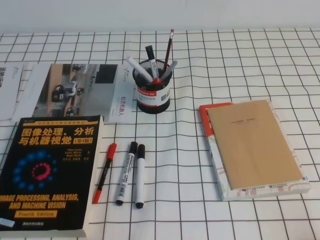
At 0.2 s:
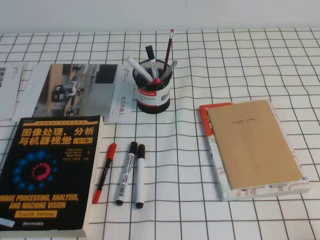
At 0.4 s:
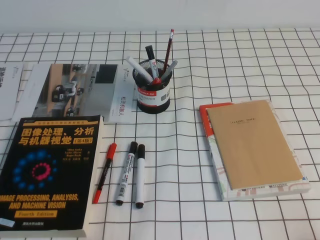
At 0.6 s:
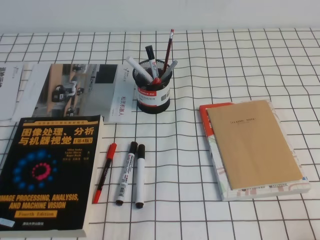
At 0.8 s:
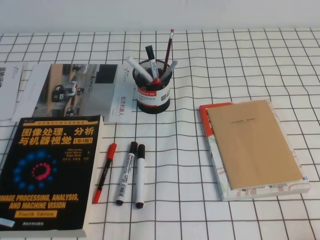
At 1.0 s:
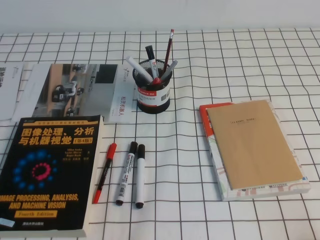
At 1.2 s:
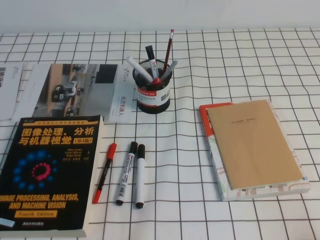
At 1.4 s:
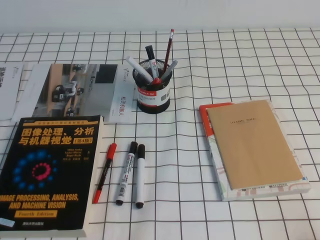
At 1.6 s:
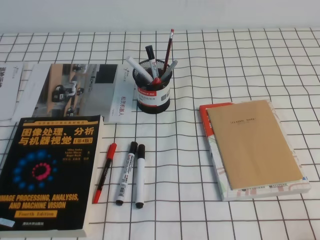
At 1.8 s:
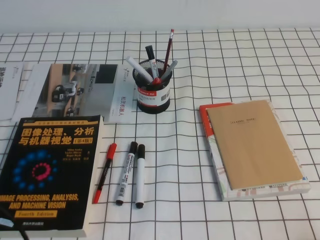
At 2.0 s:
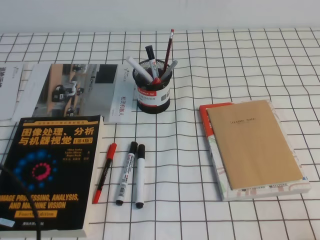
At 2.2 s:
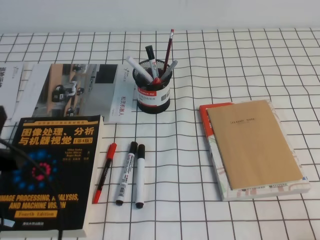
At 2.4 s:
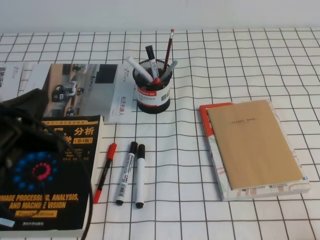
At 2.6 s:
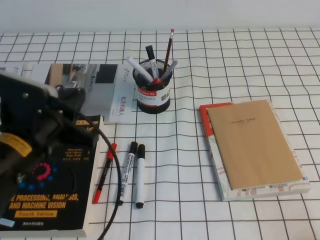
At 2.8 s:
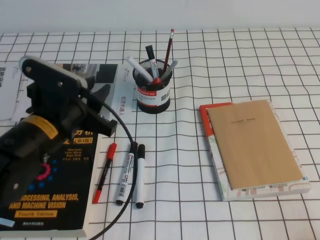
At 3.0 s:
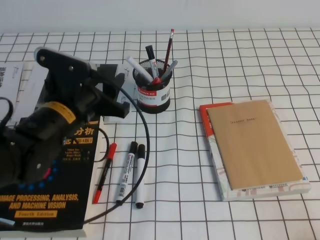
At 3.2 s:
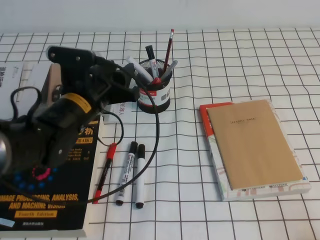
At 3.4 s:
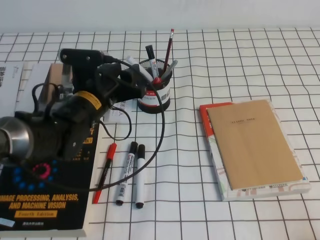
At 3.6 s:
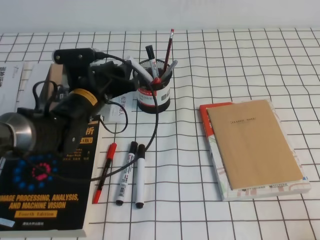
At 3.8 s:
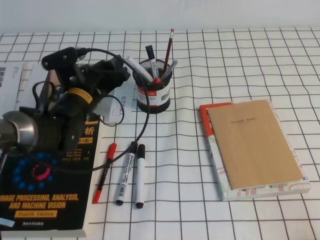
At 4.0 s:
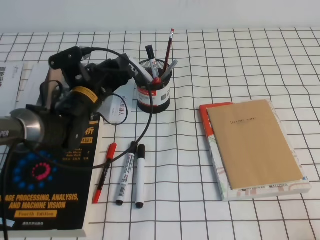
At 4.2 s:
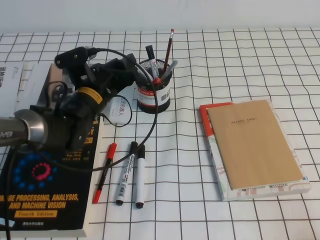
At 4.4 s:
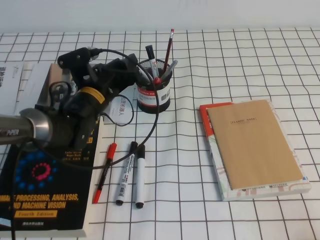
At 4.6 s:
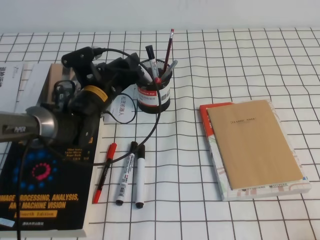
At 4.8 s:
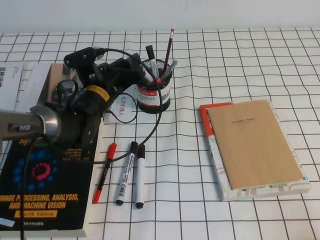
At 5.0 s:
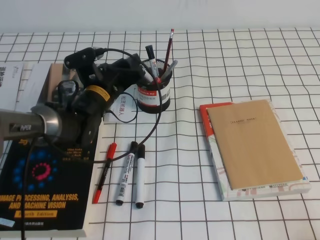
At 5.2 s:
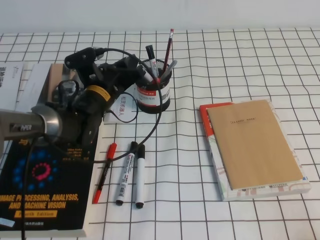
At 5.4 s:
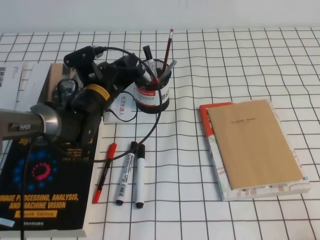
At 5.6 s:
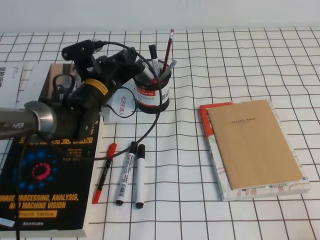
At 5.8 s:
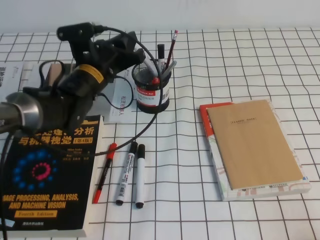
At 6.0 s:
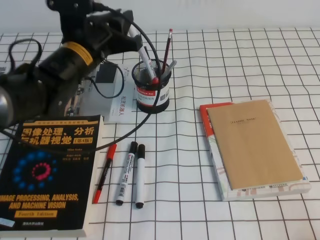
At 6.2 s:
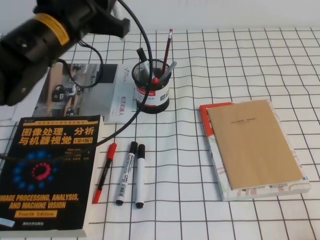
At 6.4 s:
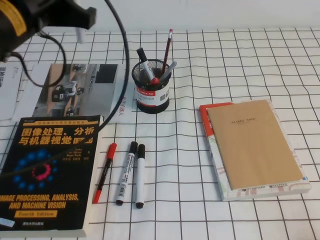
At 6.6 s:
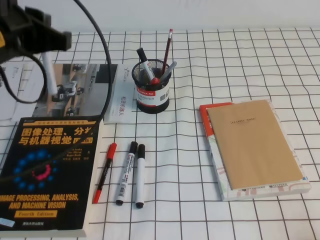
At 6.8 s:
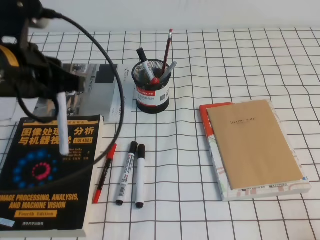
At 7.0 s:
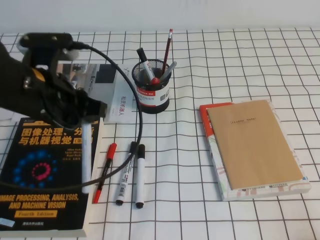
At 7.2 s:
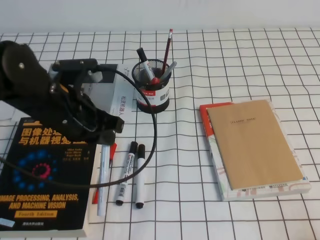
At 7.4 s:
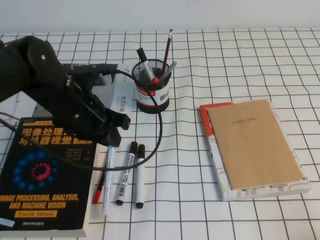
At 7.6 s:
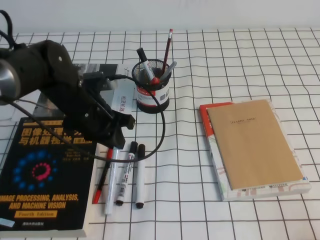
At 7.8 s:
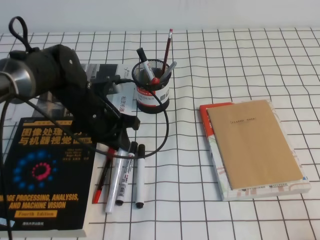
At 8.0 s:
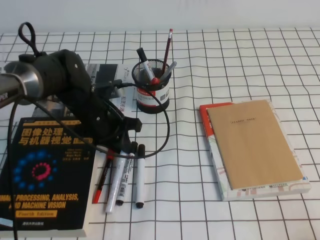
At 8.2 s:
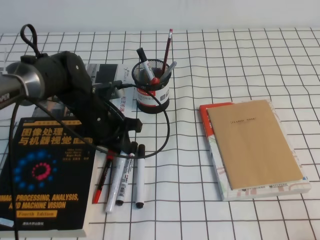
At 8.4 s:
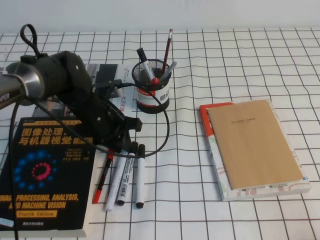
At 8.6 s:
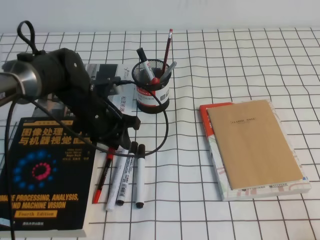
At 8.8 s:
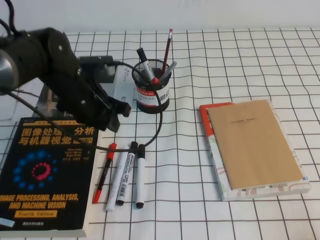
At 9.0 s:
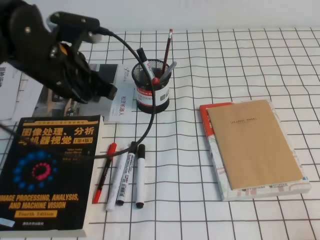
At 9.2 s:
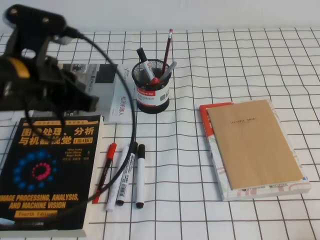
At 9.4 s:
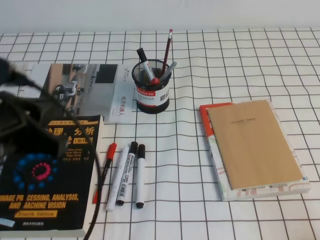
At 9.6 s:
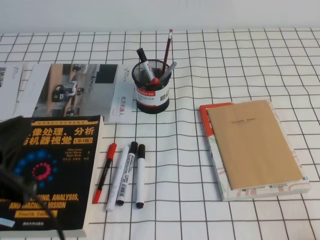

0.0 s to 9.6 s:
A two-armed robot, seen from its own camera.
1.6 to 3.2 s: The left gripper travels forward and to the right by approximately 30 cm, and opens up.
3.2 to 4.8 s: The left gripper goes some 10 cm forward and downward.
4.8 to 6.4 s: The left gripper moves upward and backward, approximately 25 cm, and closes its fingers.
6.4 to 8.0 s: The left gripper moves downward, roughly 20 cm.
8.0 to 9.6 s: The left gripper travels backward, upward and to the left by about 30 cm.

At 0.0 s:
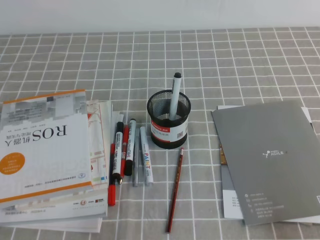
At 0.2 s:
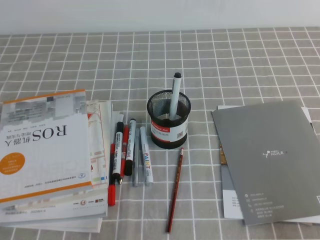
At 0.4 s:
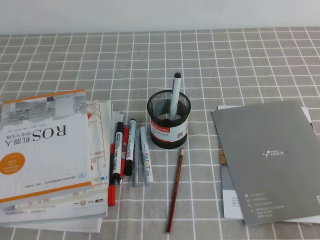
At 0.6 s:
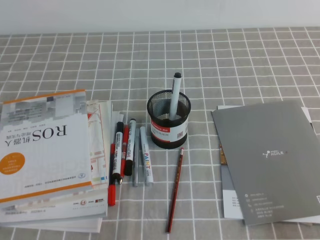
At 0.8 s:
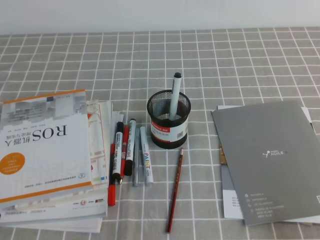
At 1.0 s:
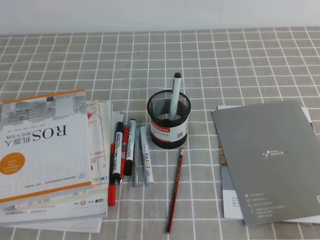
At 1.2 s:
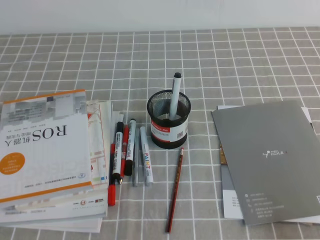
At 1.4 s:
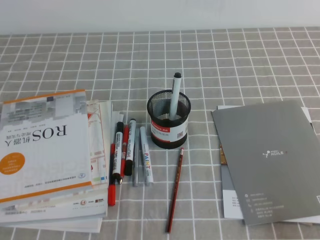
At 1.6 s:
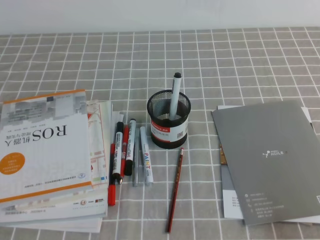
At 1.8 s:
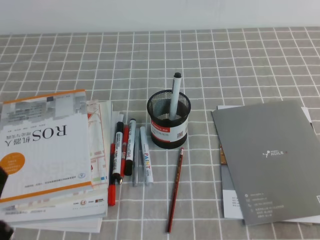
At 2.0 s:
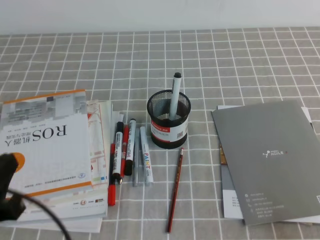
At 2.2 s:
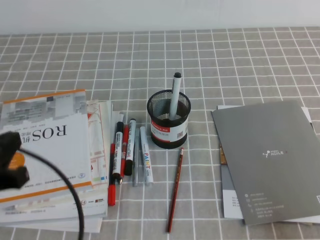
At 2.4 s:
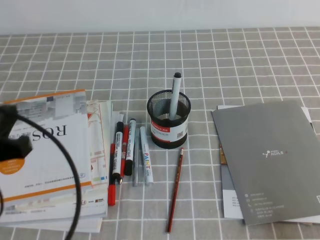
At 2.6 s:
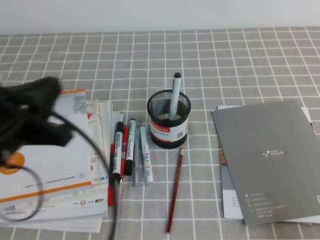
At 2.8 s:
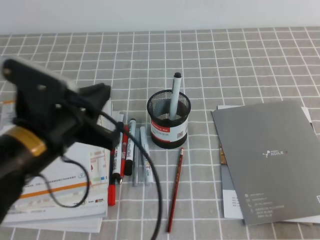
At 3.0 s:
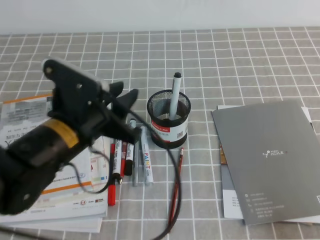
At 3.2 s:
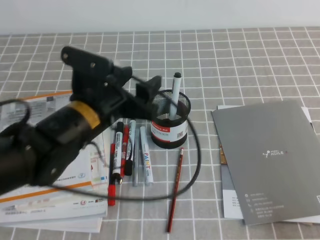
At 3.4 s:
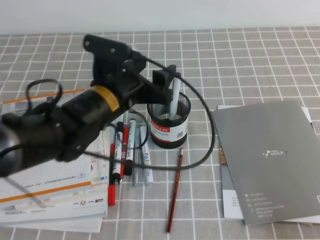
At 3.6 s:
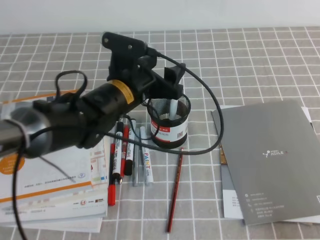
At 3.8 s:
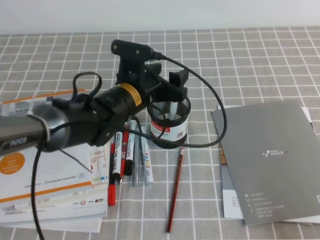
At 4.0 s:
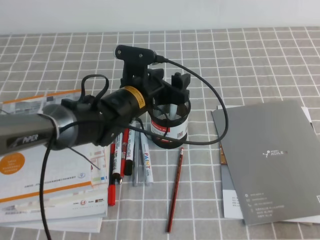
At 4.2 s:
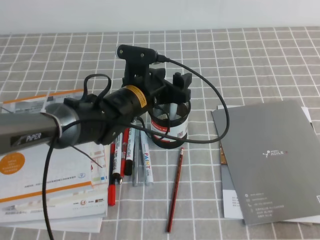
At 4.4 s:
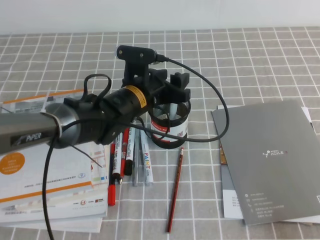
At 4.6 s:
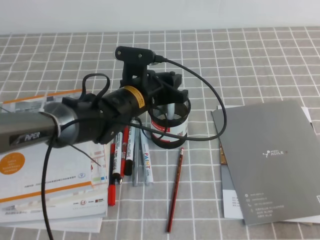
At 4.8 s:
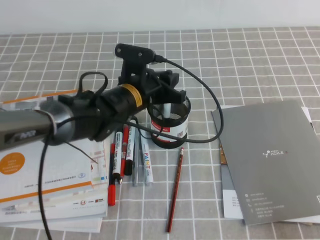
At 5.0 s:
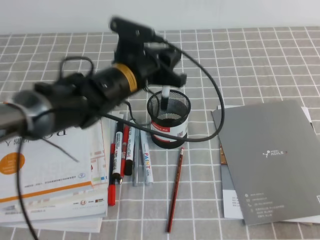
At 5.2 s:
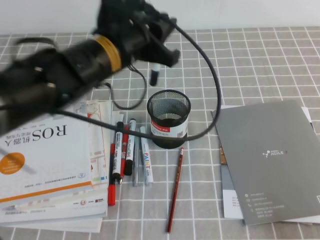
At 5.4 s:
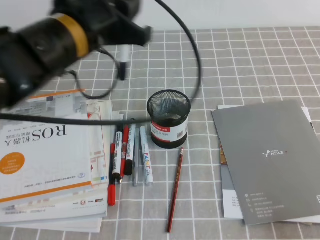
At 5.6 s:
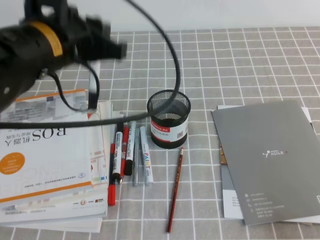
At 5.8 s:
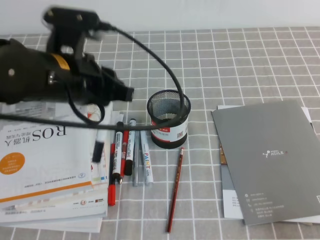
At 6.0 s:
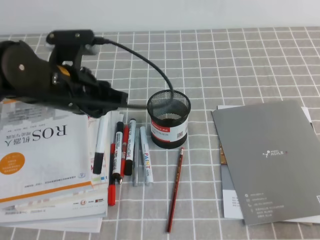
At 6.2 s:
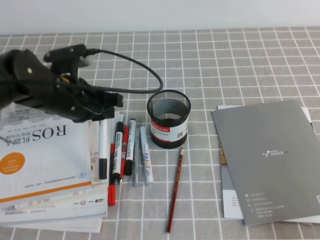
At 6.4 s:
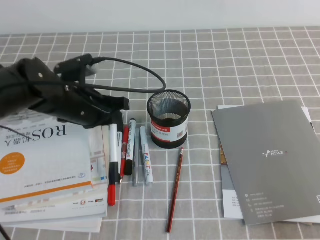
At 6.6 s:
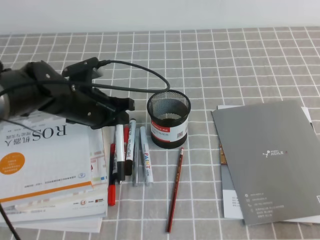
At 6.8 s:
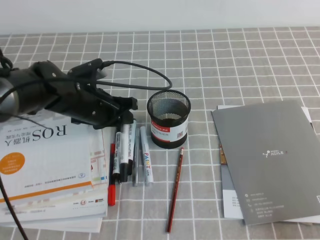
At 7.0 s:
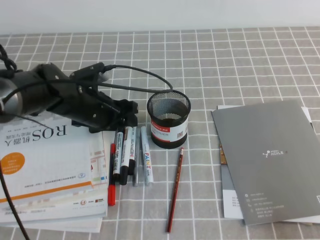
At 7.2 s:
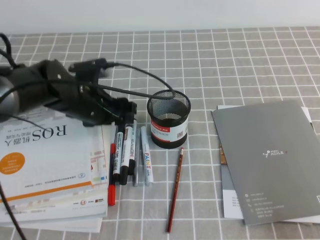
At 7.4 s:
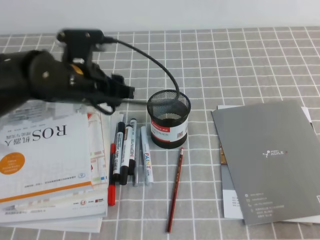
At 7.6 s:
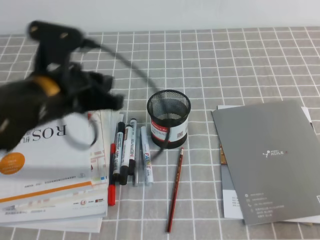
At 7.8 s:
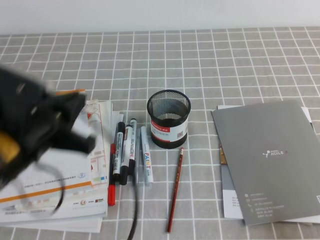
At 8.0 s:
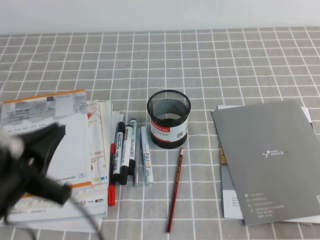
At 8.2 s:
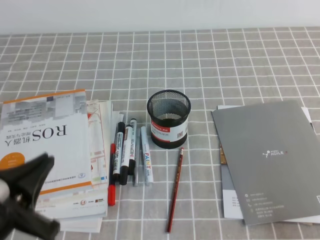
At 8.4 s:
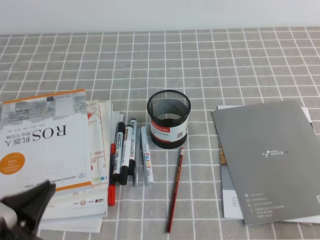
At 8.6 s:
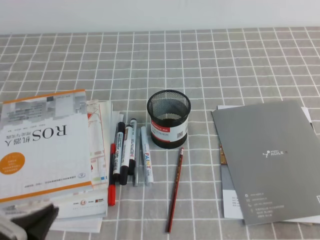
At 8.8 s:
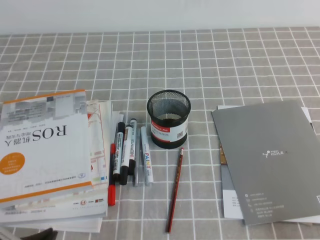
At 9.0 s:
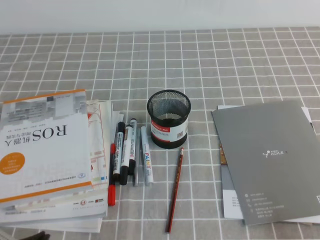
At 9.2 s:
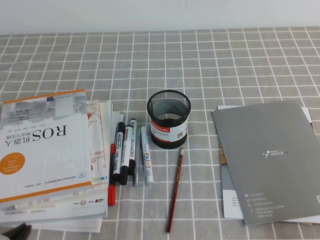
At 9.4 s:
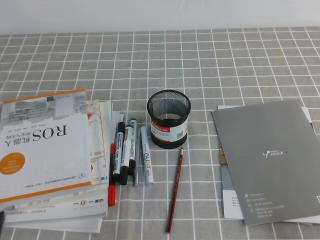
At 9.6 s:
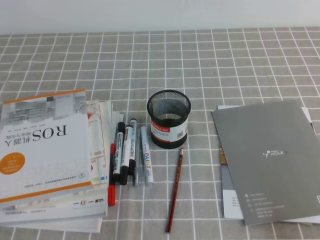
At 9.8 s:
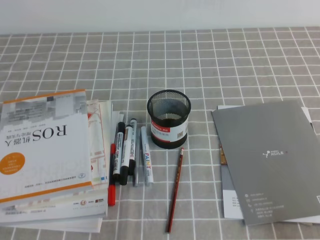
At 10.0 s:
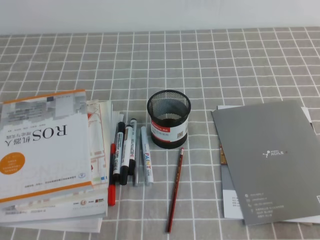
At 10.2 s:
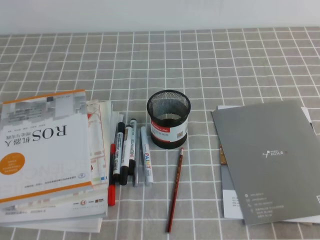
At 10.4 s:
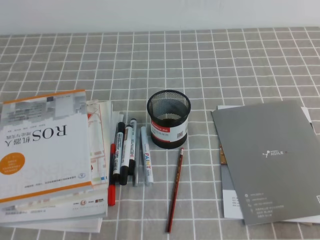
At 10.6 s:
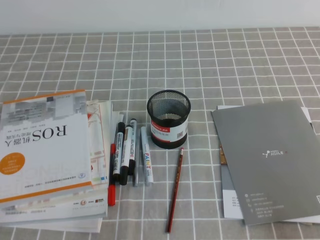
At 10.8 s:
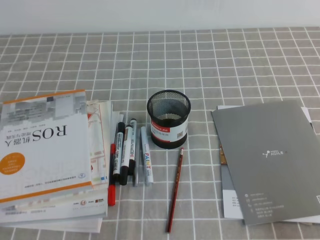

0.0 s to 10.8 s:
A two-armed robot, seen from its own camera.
Step, 0.0 to 10.8 s: Pick up the pen from the pen holder.
1.6 to 3.0 s: The left gripper moves forward and to the right, approximately 20 cm, and opens up.
3.0 to 4.6 s: The left gripper shifts roughly 20 cm forward, to the right and downward, and opens and closes again.
4.6 to 6.2 s: The left gripper moves to the left and upward, roughly 10 cm.
6.2 to 7.8 s: The left gripper heads backward, covering approximately 10 cm, and opens, then closes again.
7.8 to 9.2 s: The left gripper heads downward, backward and to the left, covering some 20 cm.
